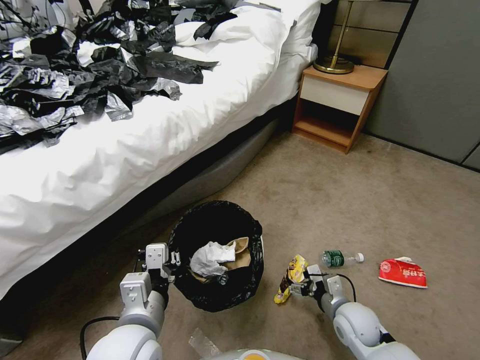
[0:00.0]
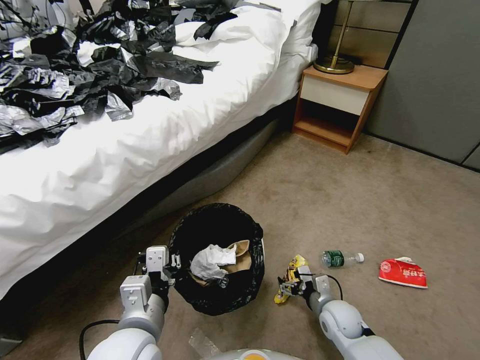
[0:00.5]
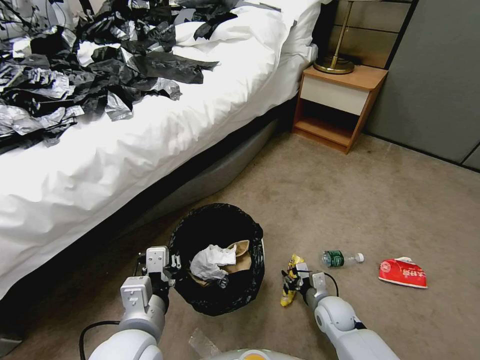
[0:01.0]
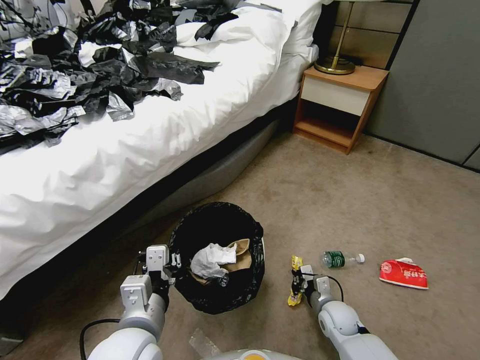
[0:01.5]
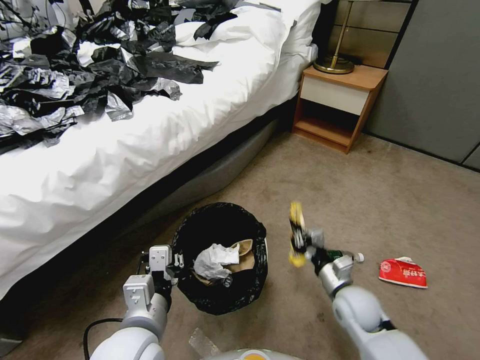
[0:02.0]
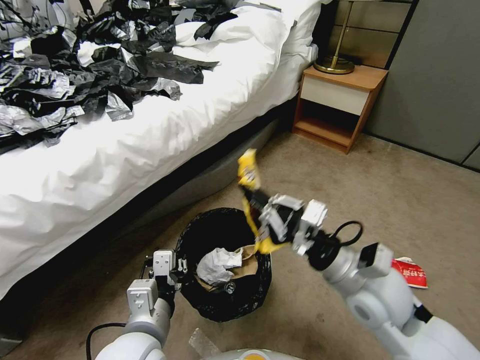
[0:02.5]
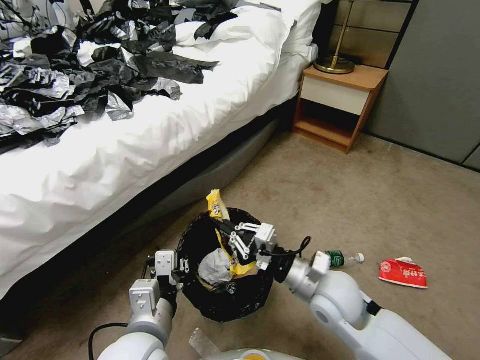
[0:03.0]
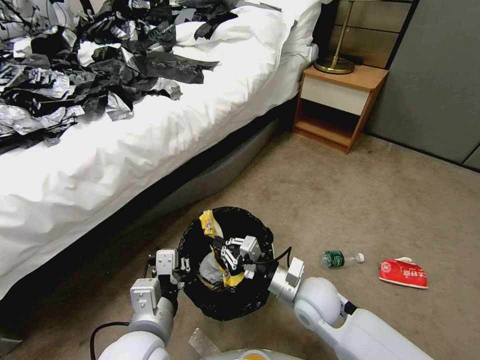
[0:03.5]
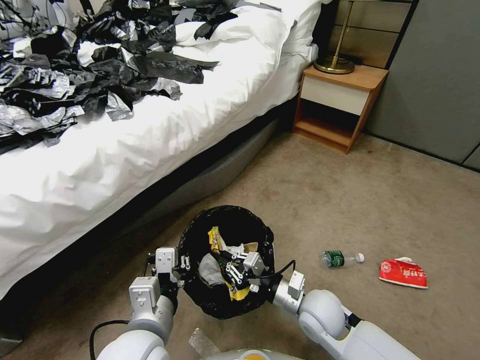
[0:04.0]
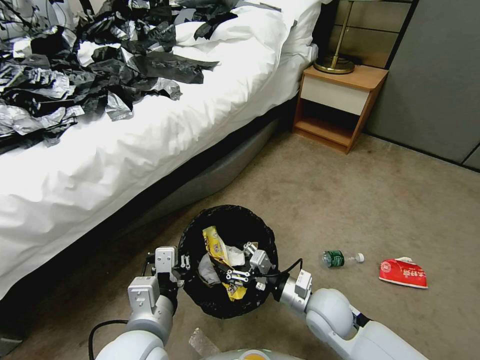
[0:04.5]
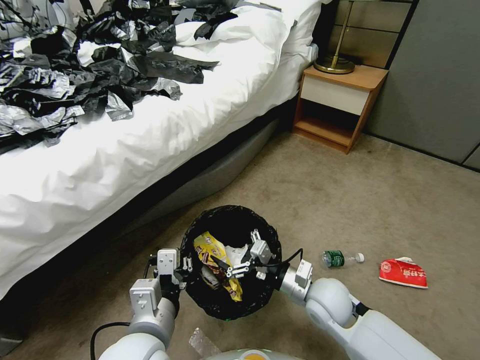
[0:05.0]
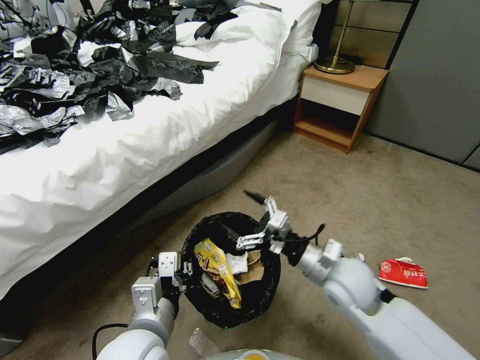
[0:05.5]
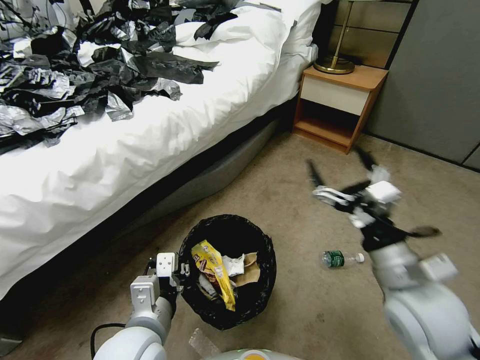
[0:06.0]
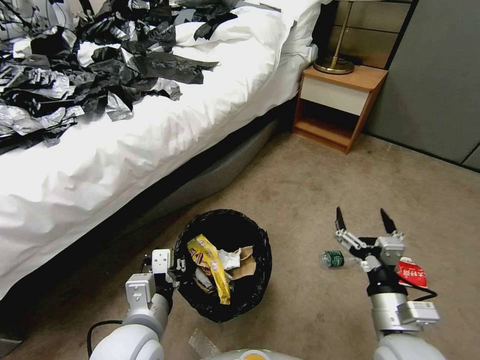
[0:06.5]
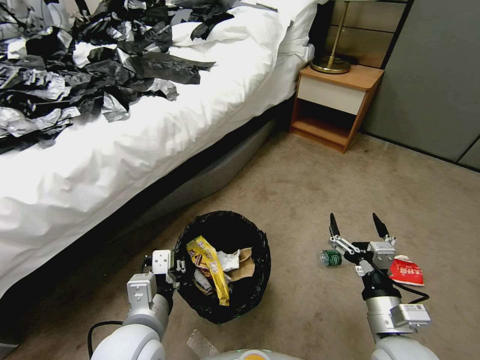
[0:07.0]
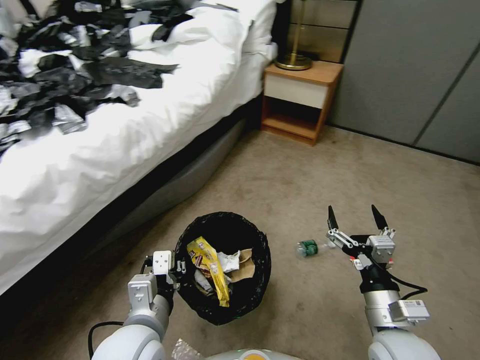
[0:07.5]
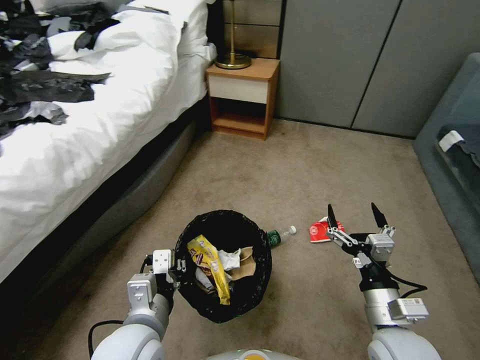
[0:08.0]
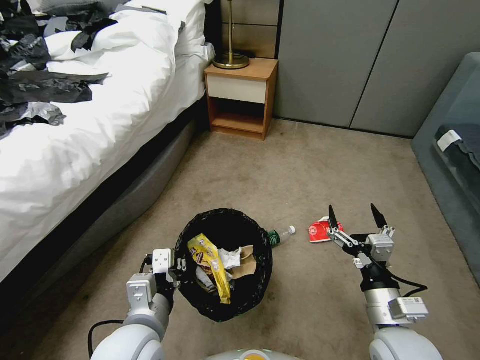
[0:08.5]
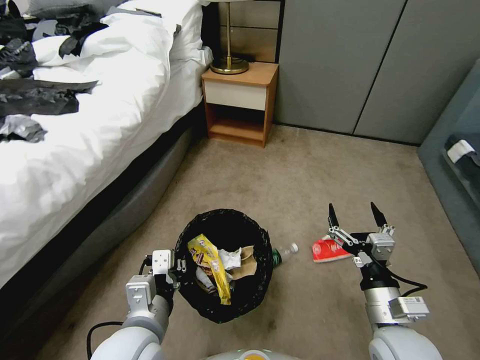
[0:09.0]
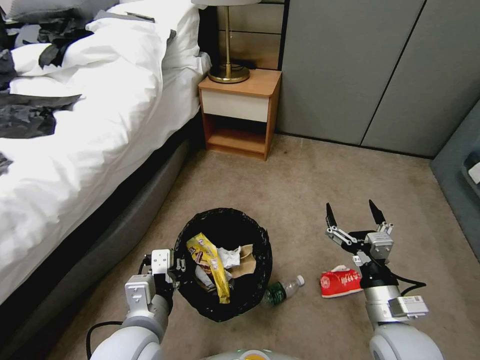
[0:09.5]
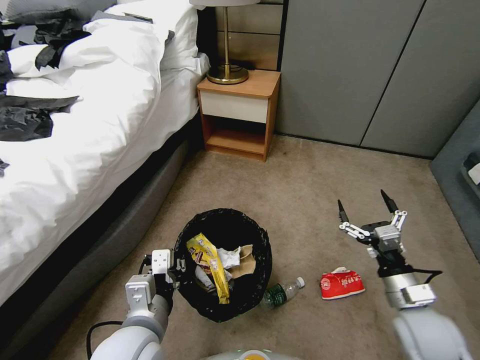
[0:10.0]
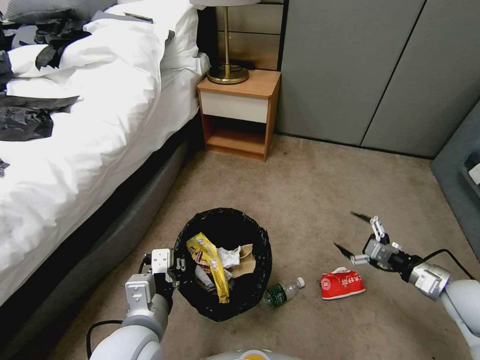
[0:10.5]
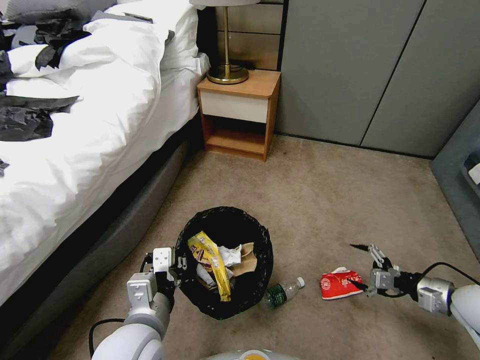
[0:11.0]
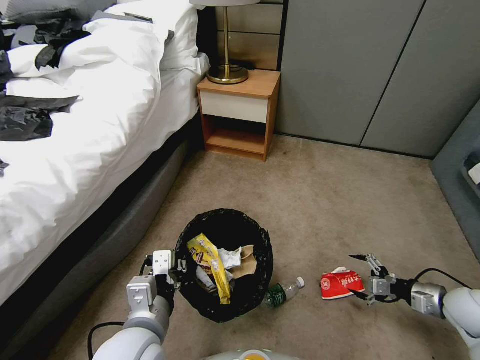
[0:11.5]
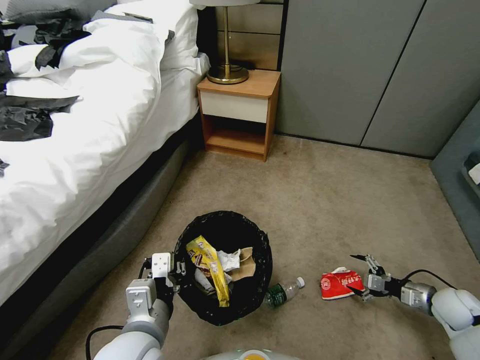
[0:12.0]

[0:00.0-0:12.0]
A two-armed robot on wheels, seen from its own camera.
Task of the whole recording: Pick up the trash bin, then pick up the garbage from the floor and place it into the trash bin.
0:00.0 to 0:02.0: The right gripper reaches some 10 cm downward, then returns, and closes up.
0:02.0 to 0:04.0: The right gripper heads to the left, covering approximately 10 cm, and goes upward and returns, about 20 cm each way.
0:04.0 to 0:06.0: The right gripper shifts roughly 20 cm upward and to the right, and opens its fingers.
0:06.0 to 0:08.0: The right gripper goes roughly 10 cm downward.
0:08.0 to 0:10.0: The right gripper moves to the right, about 10 cm.
0:10.0 to 0:12.0: The right gripper heads to the right and downward, covering some 20 cm.

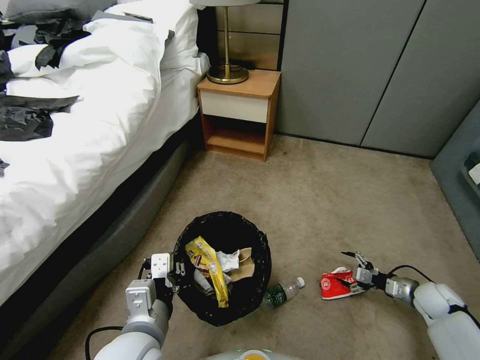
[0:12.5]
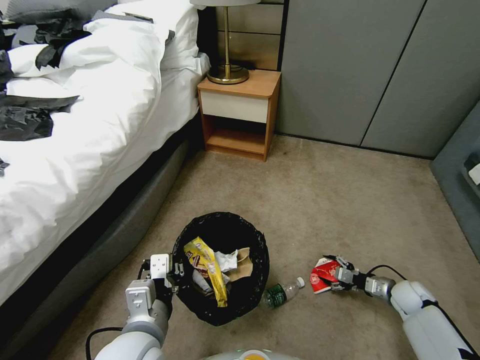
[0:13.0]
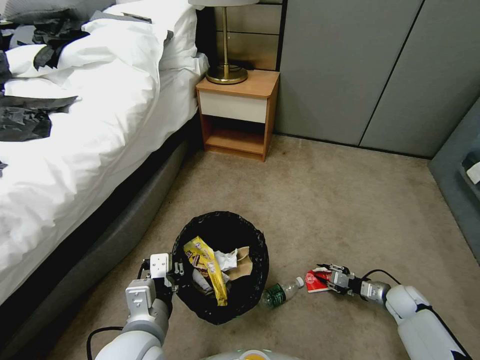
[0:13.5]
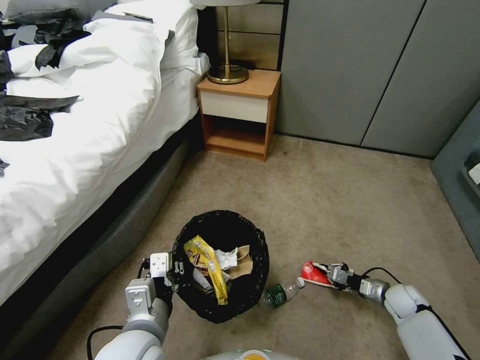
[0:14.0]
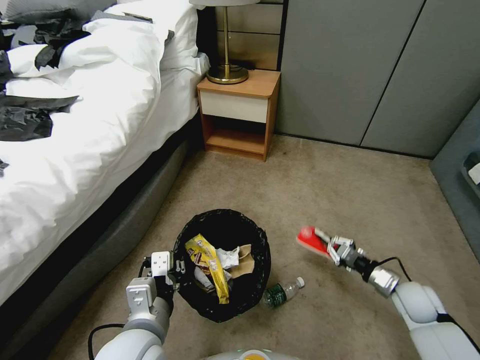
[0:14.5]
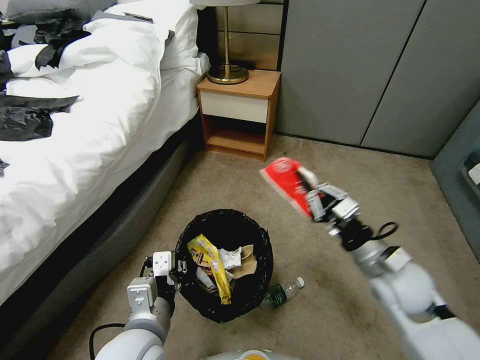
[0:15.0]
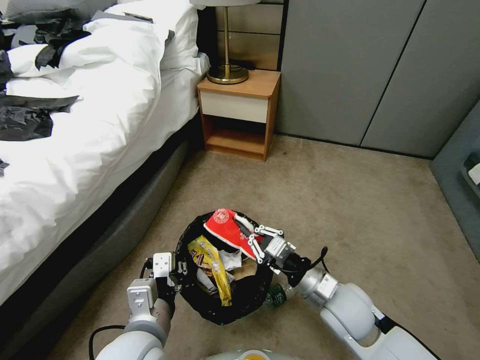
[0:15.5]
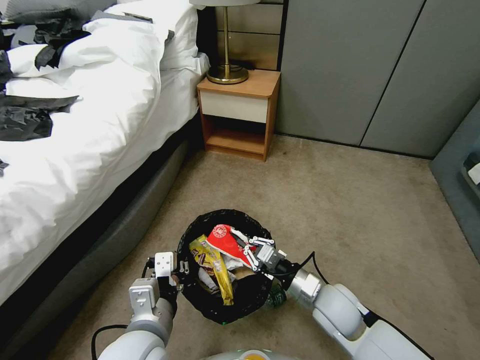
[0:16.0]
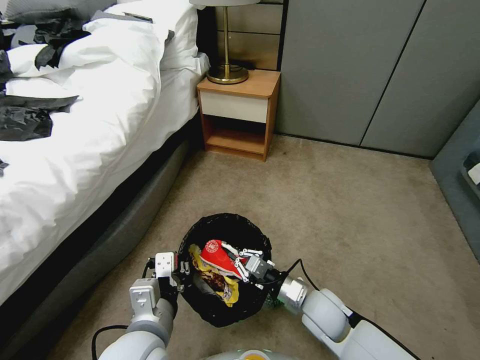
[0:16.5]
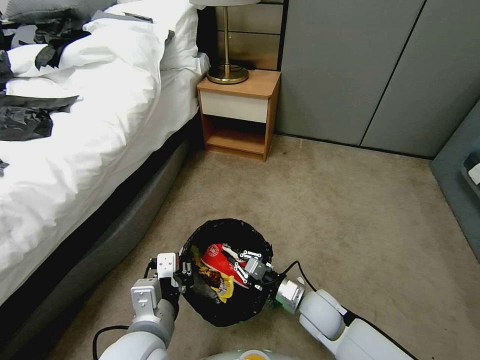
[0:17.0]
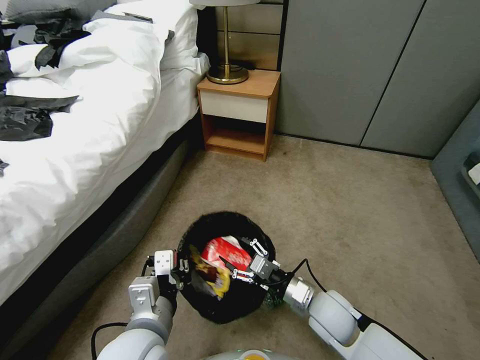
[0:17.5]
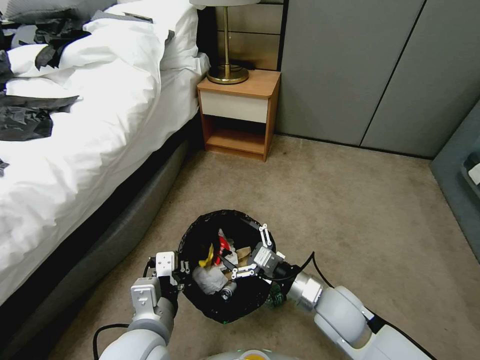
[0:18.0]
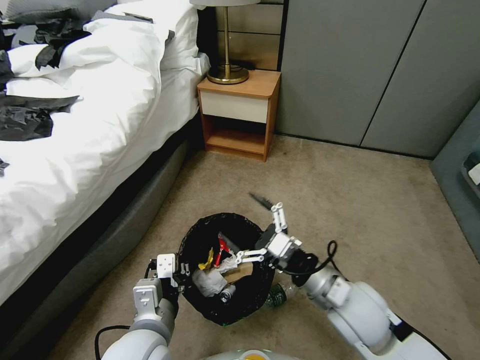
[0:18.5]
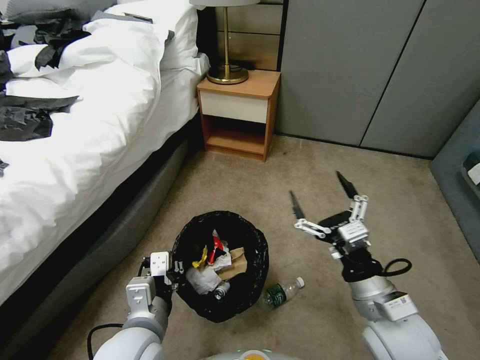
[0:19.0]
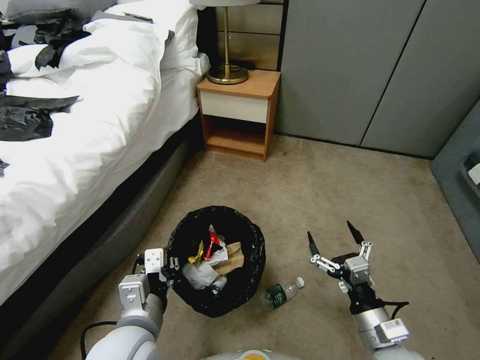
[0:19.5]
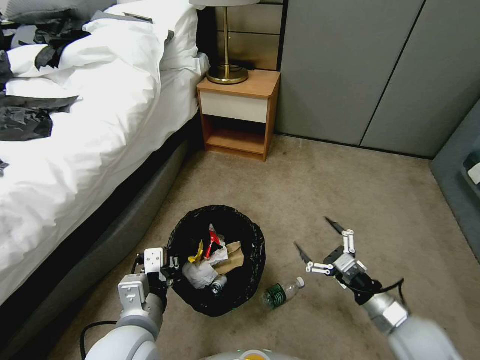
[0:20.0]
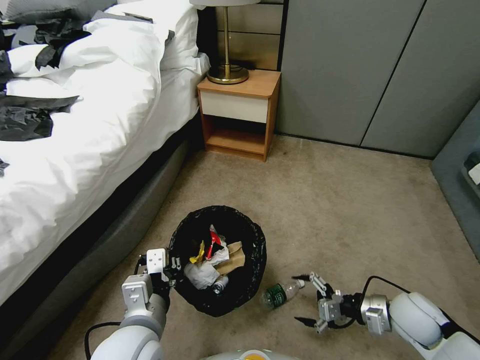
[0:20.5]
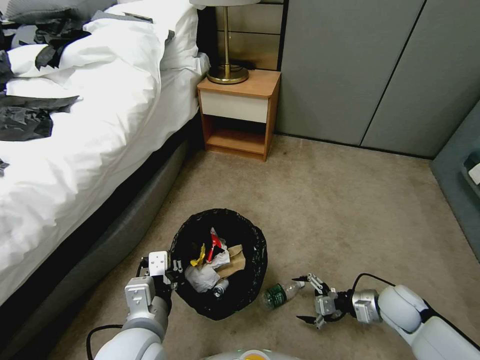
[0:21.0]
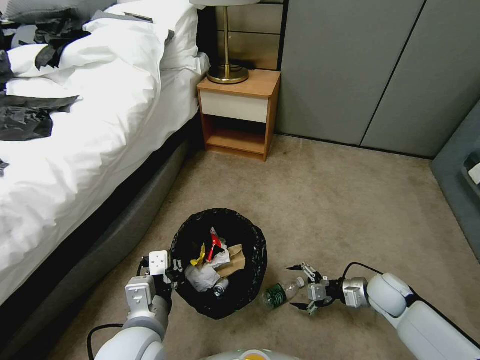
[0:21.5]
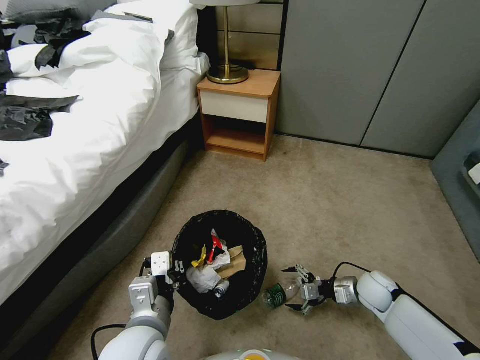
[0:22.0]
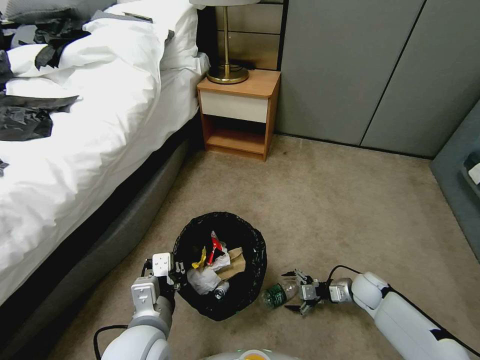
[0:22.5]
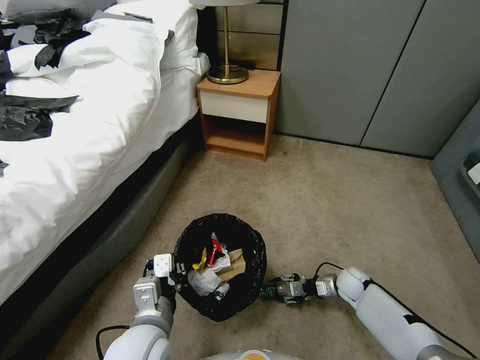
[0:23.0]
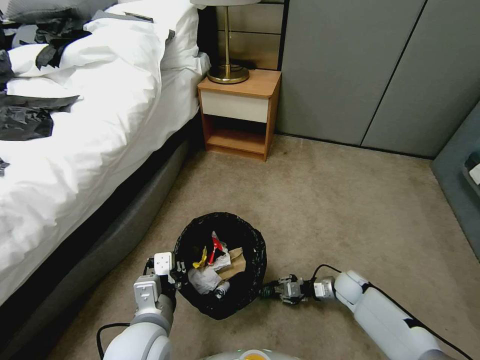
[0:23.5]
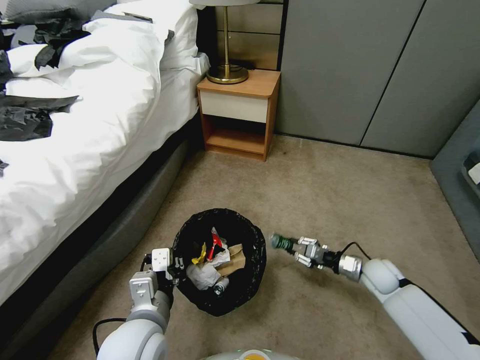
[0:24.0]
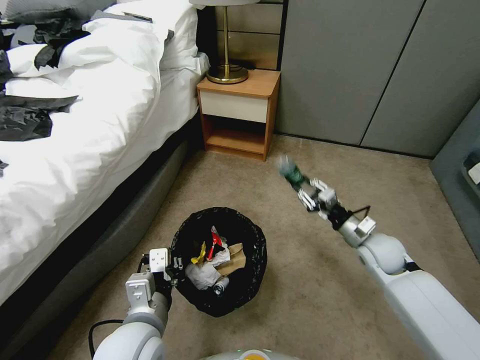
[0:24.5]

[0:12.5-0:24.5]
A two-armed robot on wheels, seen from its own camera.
Task of the whole recording: Pick up the trash bin, then pick up the garbage from the floor and place it into the trash bin.
0:12.5 to 0:14.5: The right gripper travels to the left by approximately 10 cm, and closes its fingers.
0:14.5 to 0:16.5: The right gripper shifts about 25 cm to the left.
0:16.5 to 0:18.5: The right gripper shifts roughly 15 cm upward, and opens up.
0:18.5 to 0:20.5: The right gripper travels to the right and downward by some 20 cm.
0:20.5 to 0:22.5: The right gripper goes some 15 cm downward and forward.
0:22.5 to 0:24.5: The right gripper goes some 15 cm upward, and closes up.

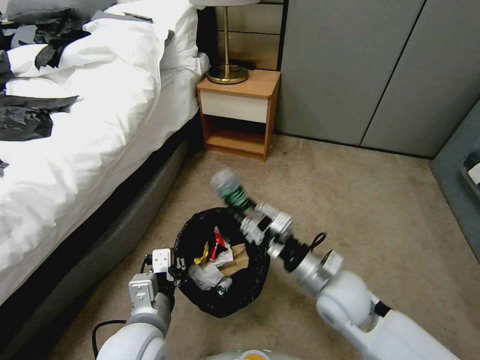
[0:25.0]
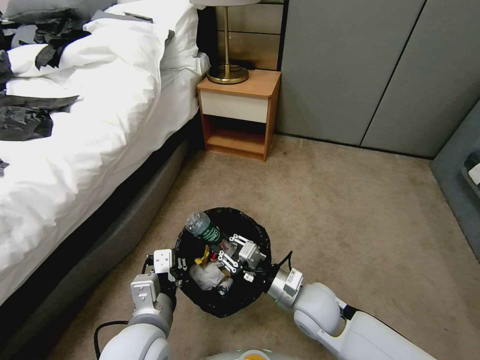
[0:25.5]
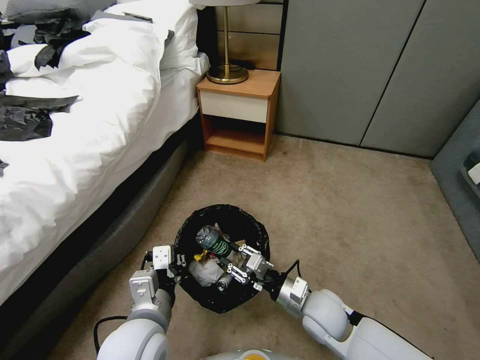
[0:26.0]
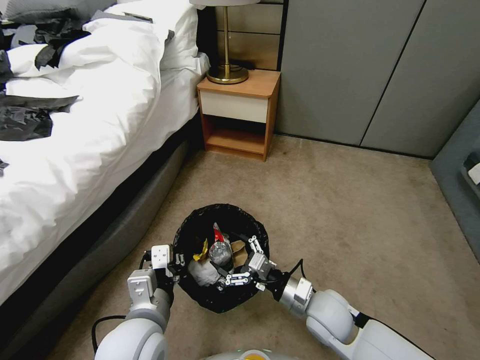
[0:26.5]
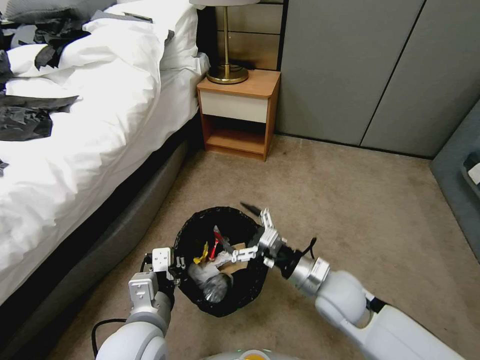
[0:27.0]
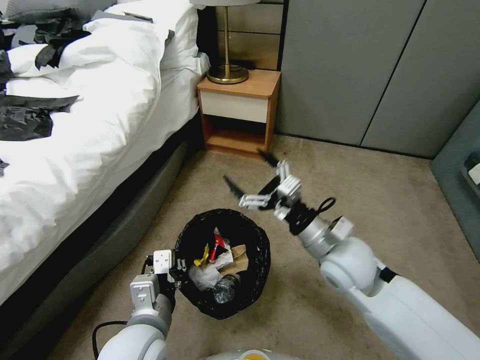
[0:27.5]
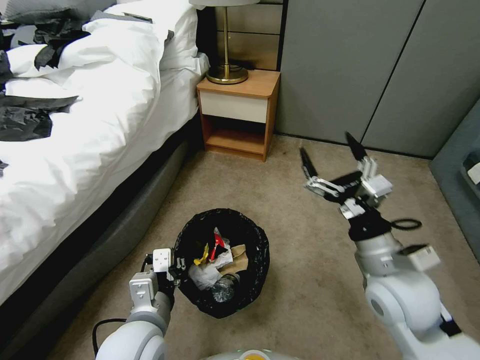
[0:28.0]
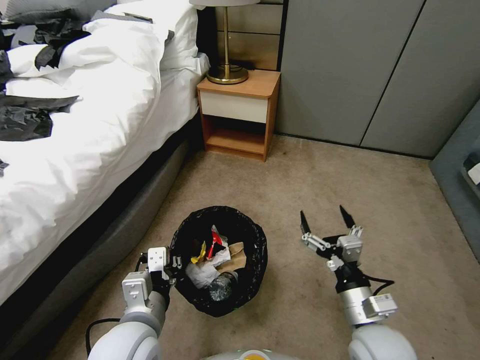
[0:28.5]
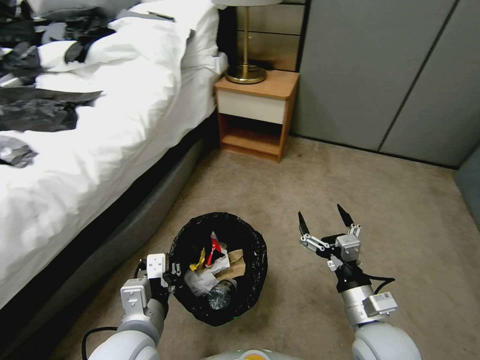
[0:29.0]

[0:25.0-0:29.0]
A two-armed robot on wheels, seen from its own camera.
Task of the whole recording: Pick up the trash bin, then pick up the garbage from the floor and place it into the trash bin.
0:25.0 to 0:27.0: The right gripper moves approximately 10 cm downward and comes back, and opens.
0:27.0 to 0:29.0: The right gripper goes some 10 cm backward and to the right.
